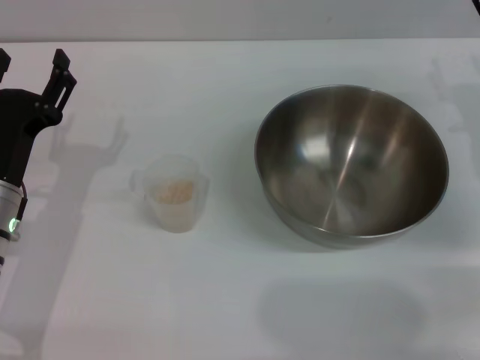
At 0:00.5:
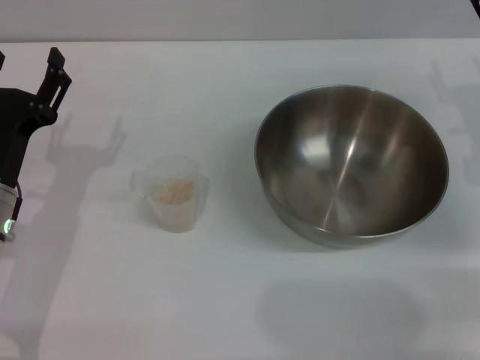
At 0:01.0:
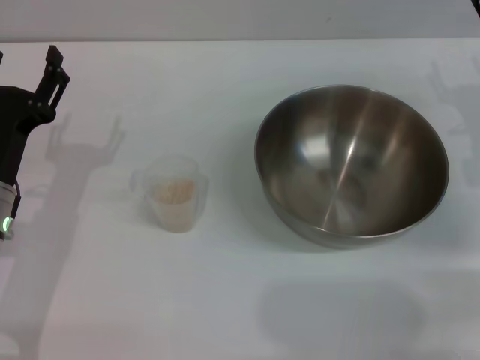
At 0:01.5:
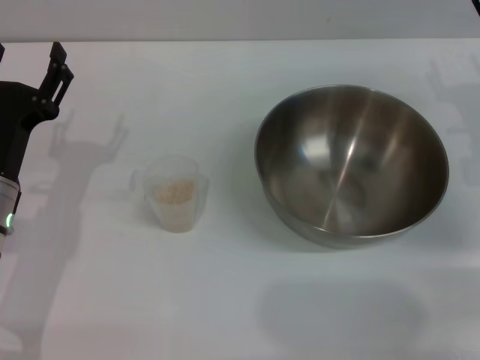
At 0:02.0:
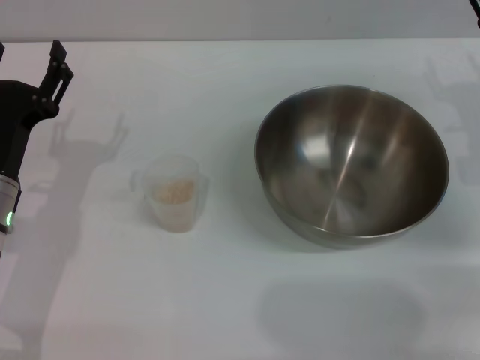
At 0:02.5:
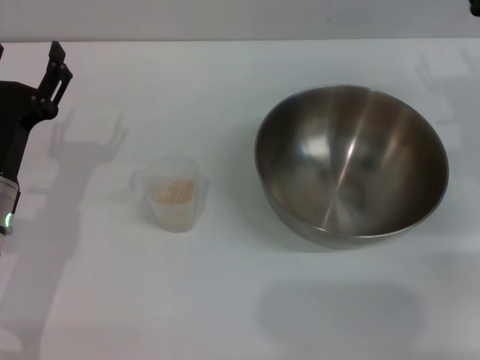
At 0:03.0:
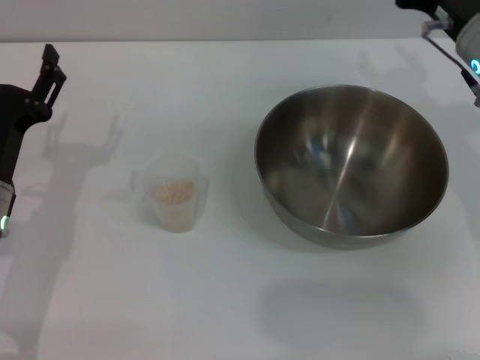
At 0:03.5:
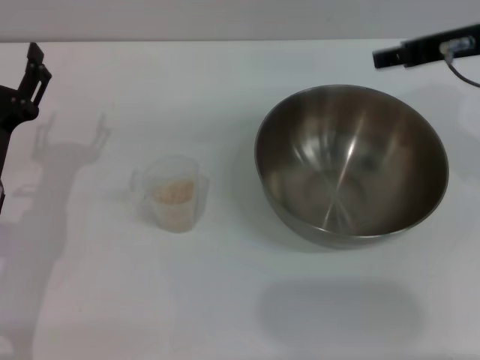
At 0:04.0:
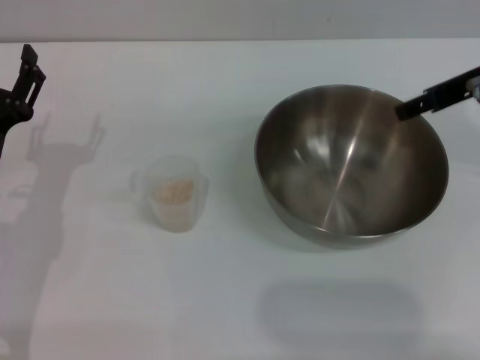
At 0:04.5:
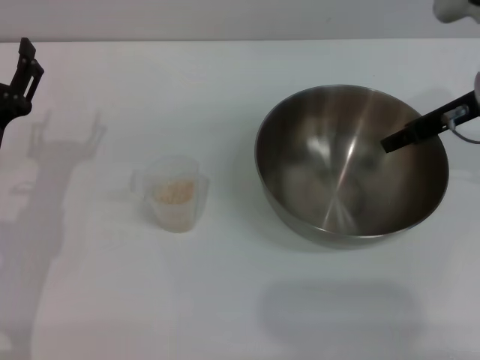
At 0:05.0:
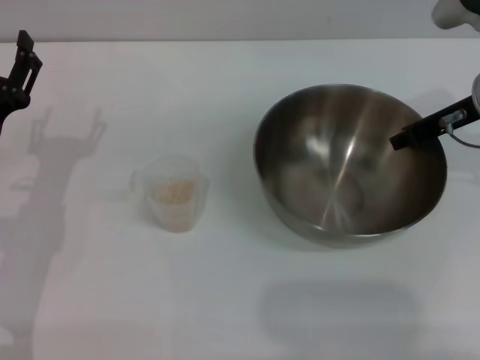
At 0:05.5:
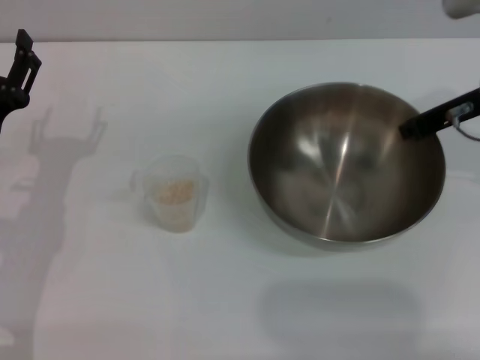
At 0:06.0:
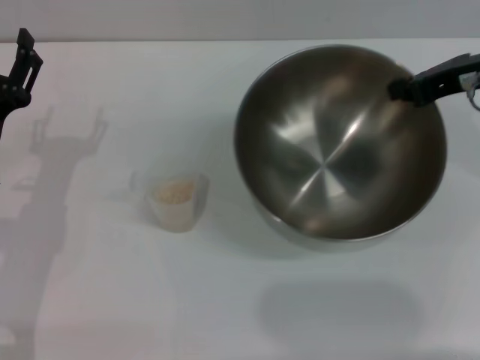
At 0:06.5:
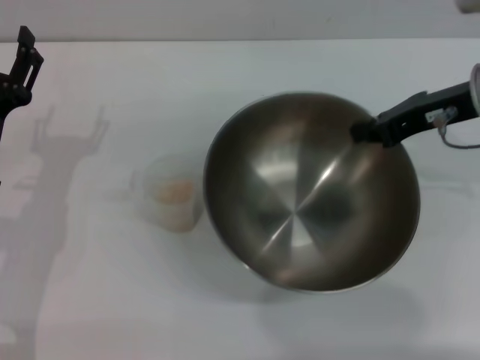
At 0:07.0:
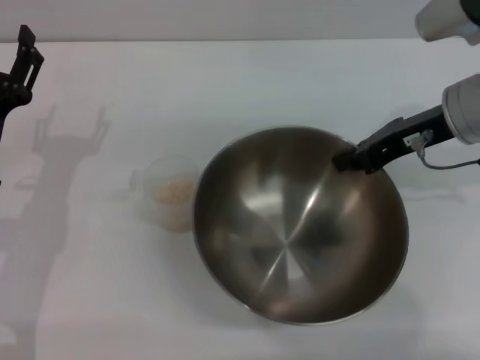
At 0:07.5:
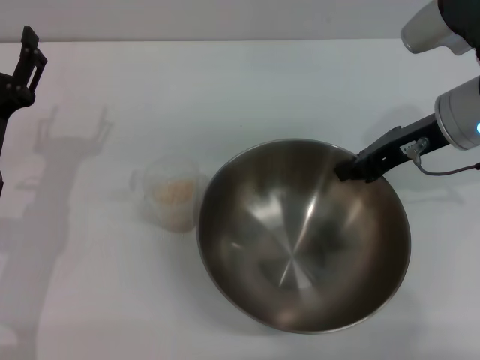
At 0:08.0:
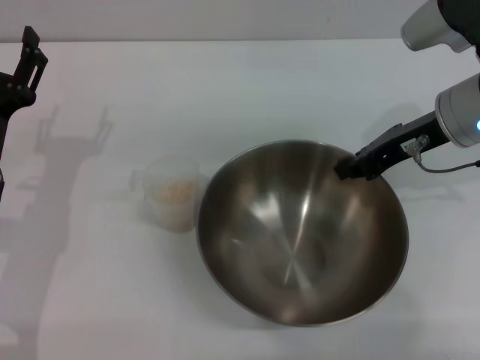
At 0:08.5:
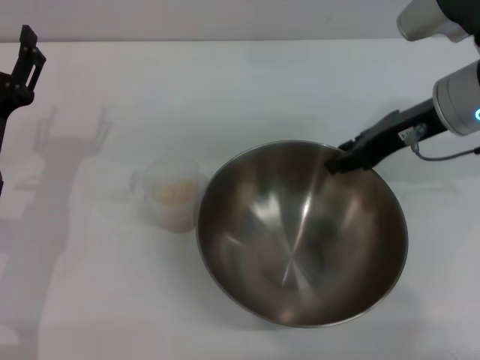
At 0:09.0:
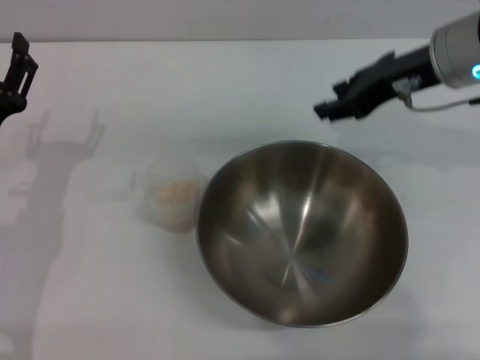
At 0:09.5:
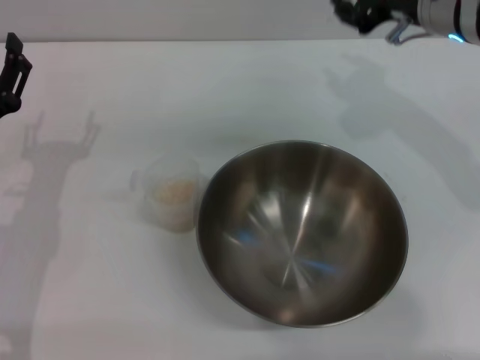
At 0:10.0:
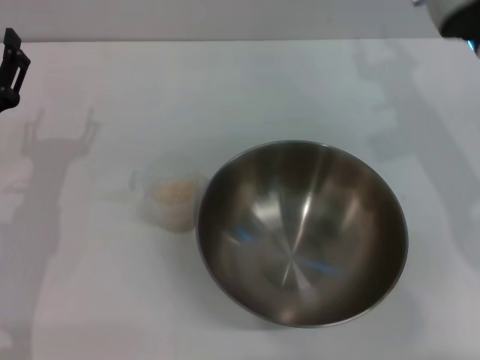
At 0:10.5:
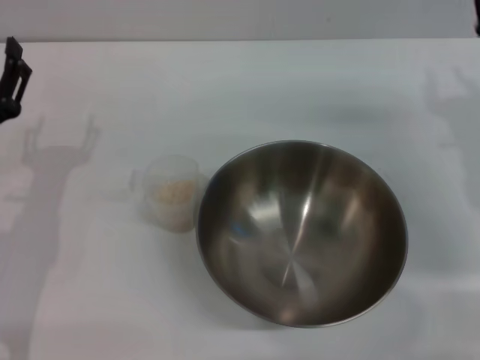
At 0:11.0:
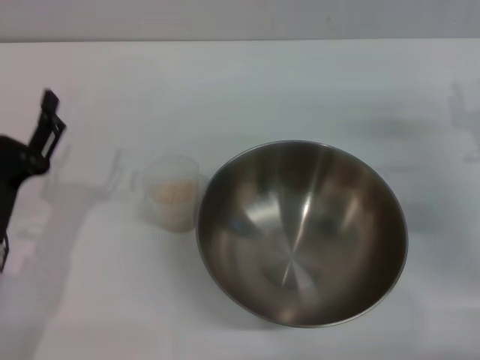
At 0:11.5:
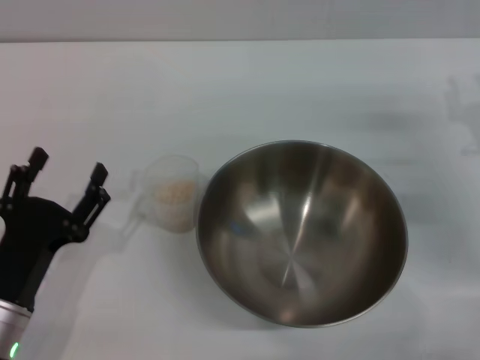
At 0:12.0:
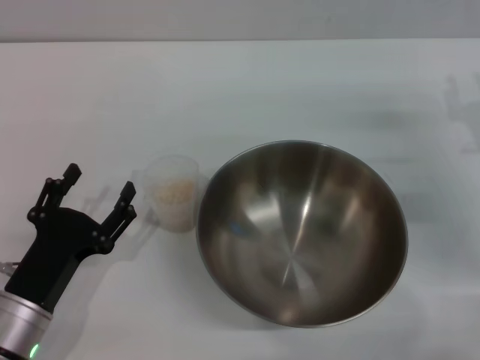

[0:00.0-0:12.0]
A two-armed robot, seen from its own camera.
Task of the whole recording: Place the bowl in the middle of the table with one hand and pour the rice from the grain cup into it with the other hand.
Step, 0:00.0 to 0:05.5: Pick up the bowl with the right gripper.
Step, 0:06.0 to 0:08.5: Place the bowl in the center of view with the right gripper.
0:00.0 to 0:02.0: There are only small adjustments of the grippers.
0:02.0 to 0:04.0: The right gripper shifts some 10 cm upward.
0:04.0 to 0:06.0: The right gripper closes up.
0:06.0 to 0:08.0: The right gripper ends up approximately 5 cm from where it was.
0:08.0 to 0:10.0: The right gripper opens up.
0:10.0 to 0:12.0: The left gripper goes about 10 cm backward and downward. The right gripper shifts some 15 cm downward and to the right.

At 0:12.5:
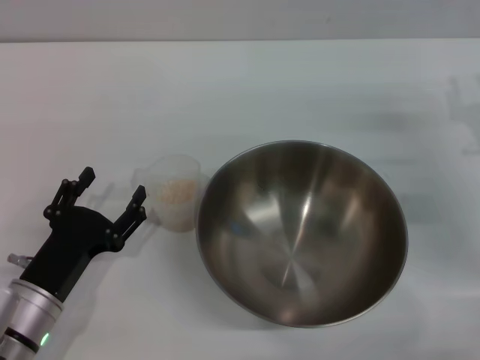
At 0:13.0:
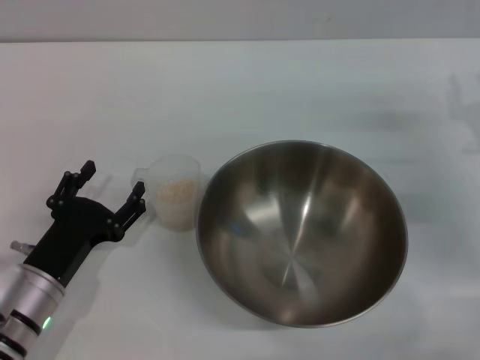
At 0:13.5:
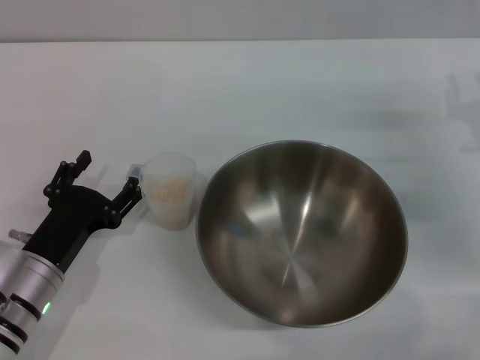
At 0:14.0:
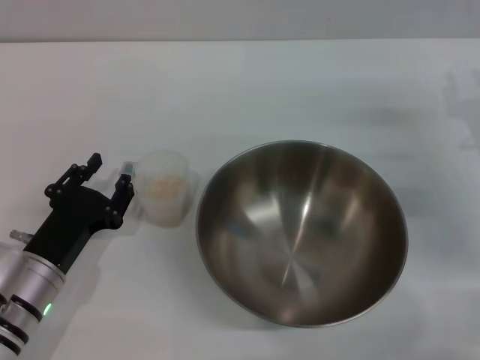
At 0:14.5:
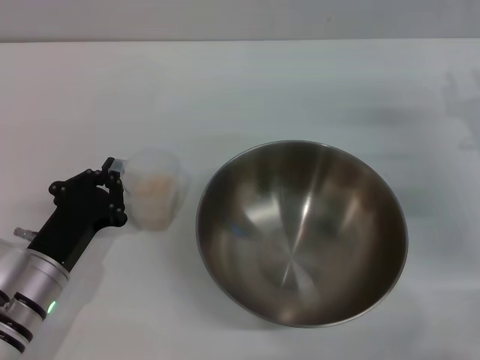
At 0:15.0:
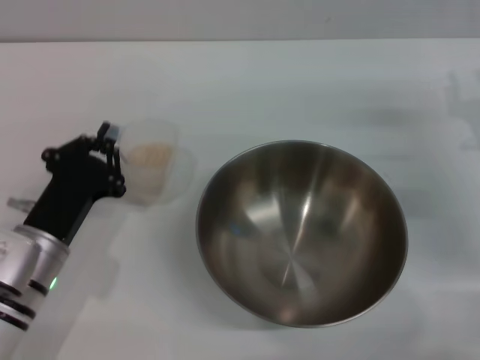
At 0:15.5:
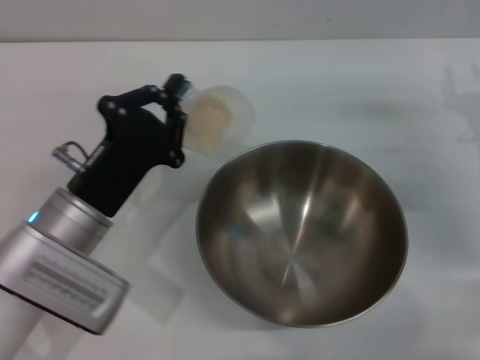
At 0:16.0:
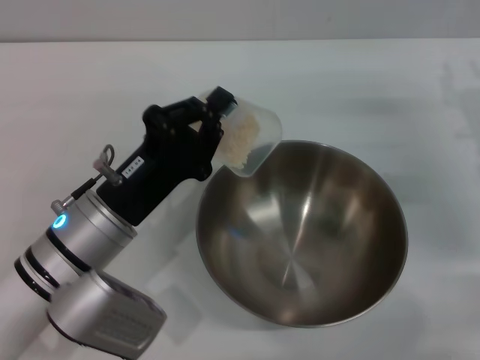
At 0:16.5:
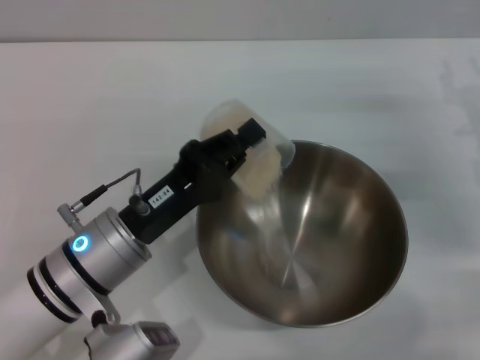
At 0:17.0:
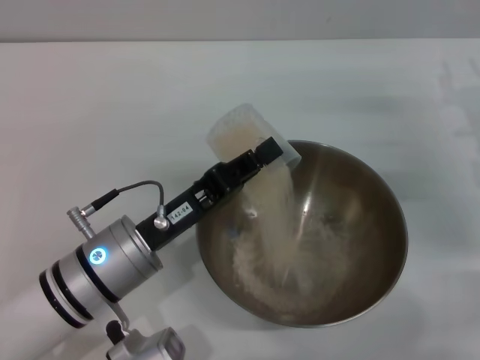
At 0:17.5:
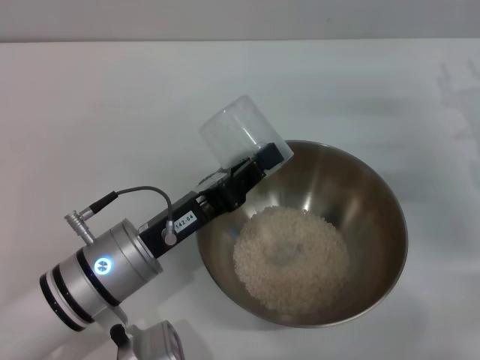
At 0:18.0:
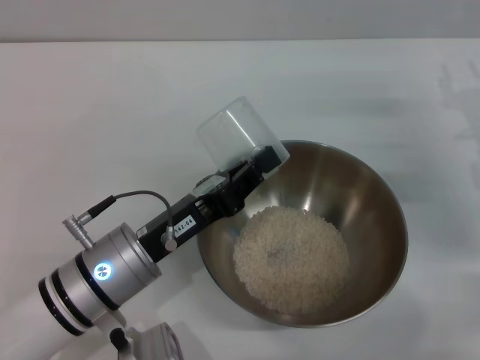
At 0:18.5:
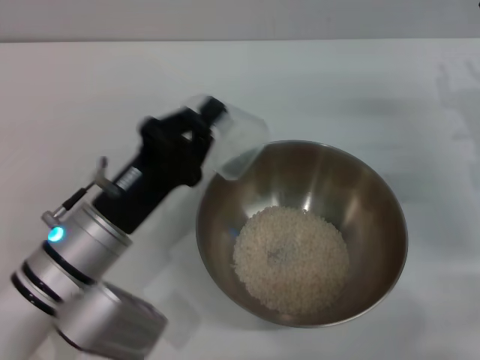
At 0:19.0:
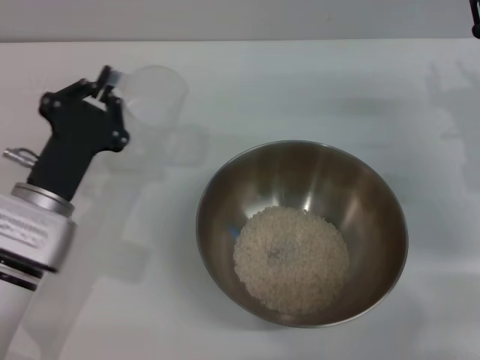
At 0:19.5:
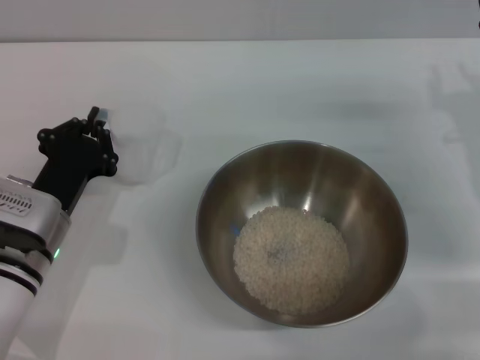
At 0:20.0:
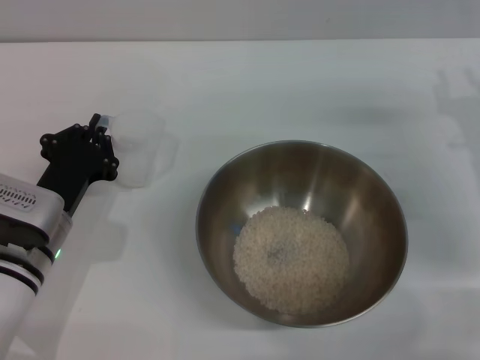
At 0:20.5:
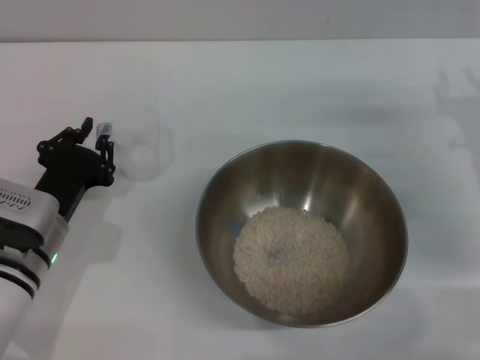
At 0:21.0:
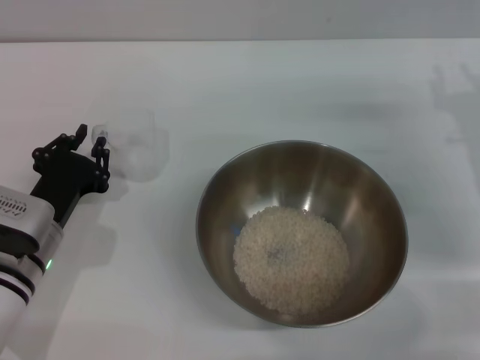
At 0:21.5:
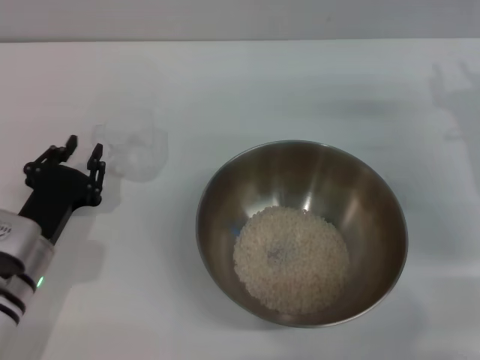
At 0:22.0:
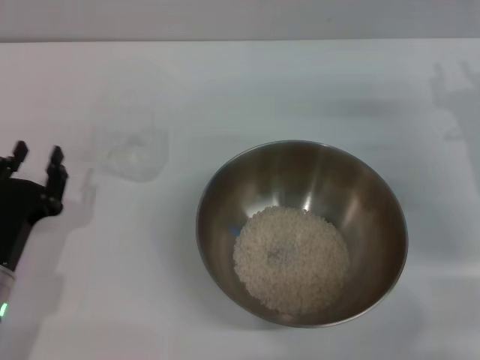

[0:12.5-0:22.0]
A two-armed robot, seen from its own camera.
Task of the whole recording: Place the bowl in the middle of the table with one hand and pour the rice from the grain cup into it with the other hand.
Step, 0:12.5 to 0:15.0: Pick up the cup with rice in it with the left gripper.
Step, 0:15.5 to 0:18.0: Pour the rice from the cup into the bowl with the left gripper.
Step, 0:18.5 to 0:21.5: Place the cup on the table with the left gripper.
0:12.5 to 0:14.5: The left gripper closes.
0:14.5 to 0:16.5: The left gripper moves to the right and upward, roughly 10 cm.
0:18.0 to 0:20.0: The left gripper travels to the left by some 5 cm.
0:20.0 to 0:22.0: The left gripper is displaced backward by roughly 5 cm, and opens up.
